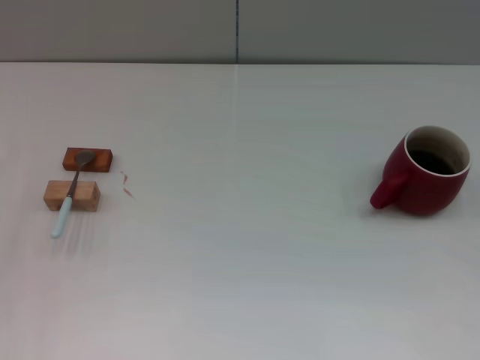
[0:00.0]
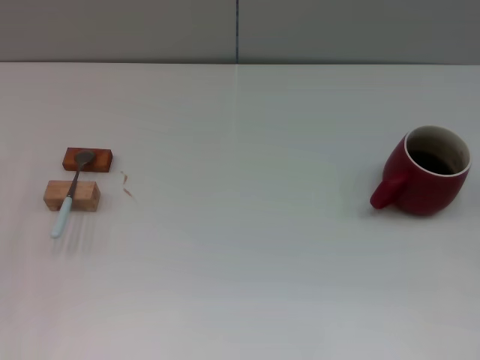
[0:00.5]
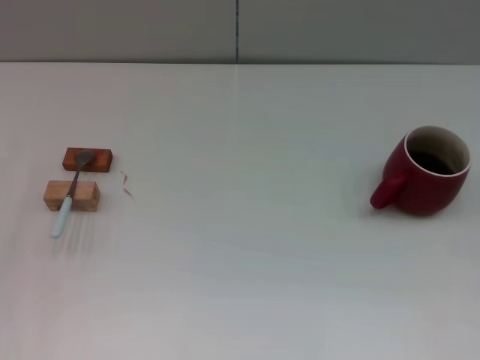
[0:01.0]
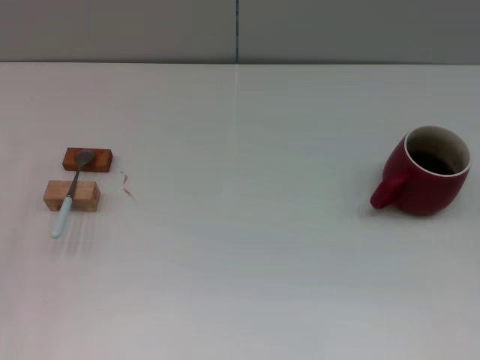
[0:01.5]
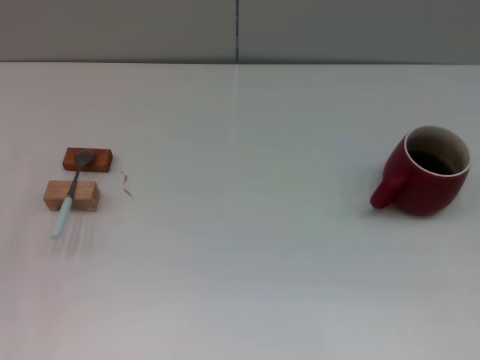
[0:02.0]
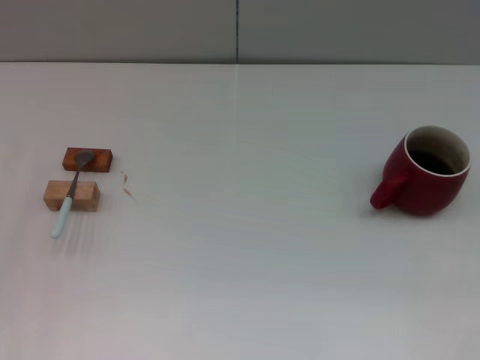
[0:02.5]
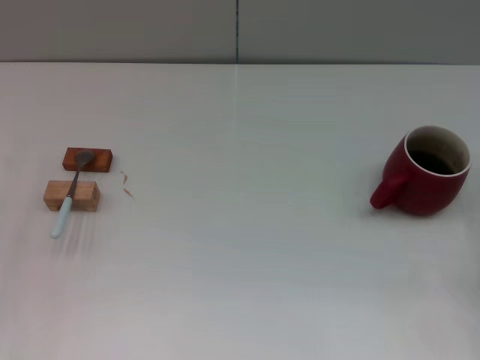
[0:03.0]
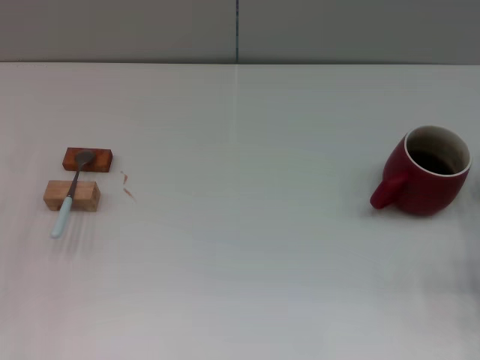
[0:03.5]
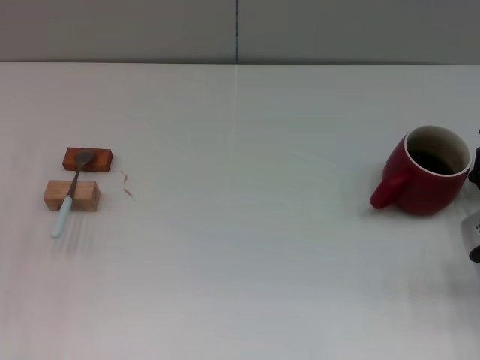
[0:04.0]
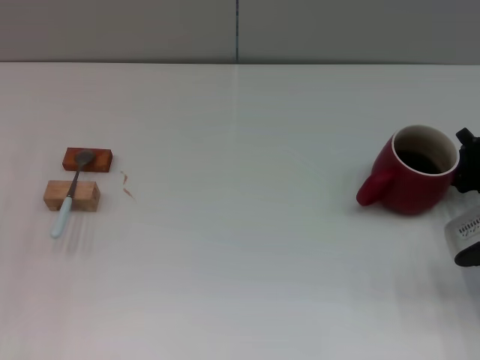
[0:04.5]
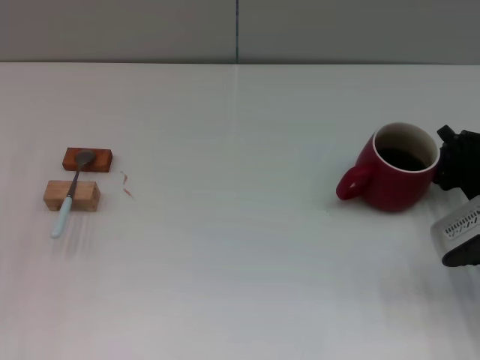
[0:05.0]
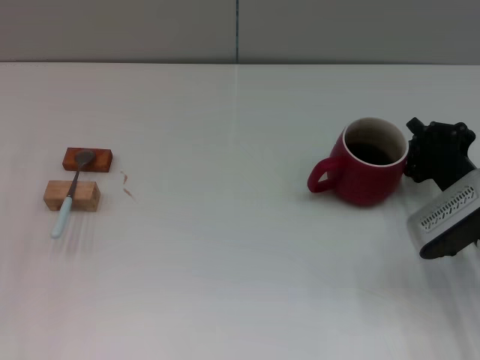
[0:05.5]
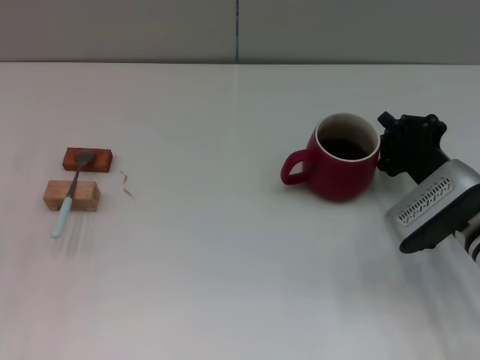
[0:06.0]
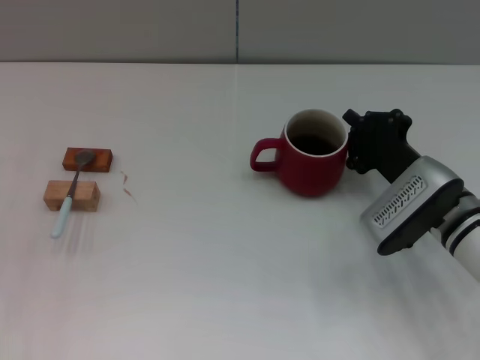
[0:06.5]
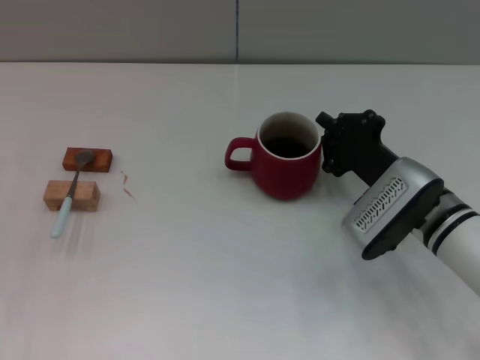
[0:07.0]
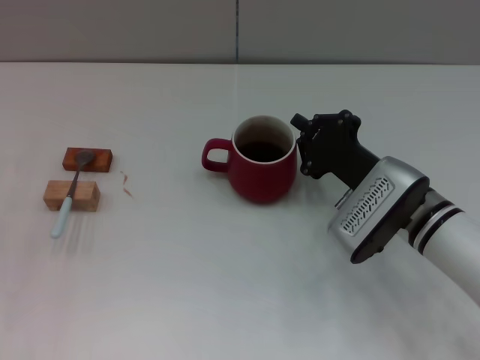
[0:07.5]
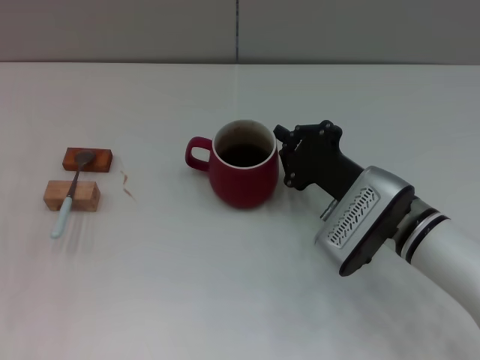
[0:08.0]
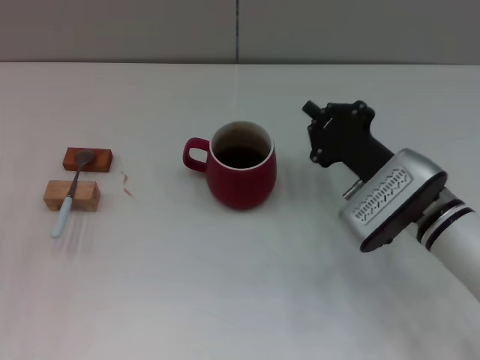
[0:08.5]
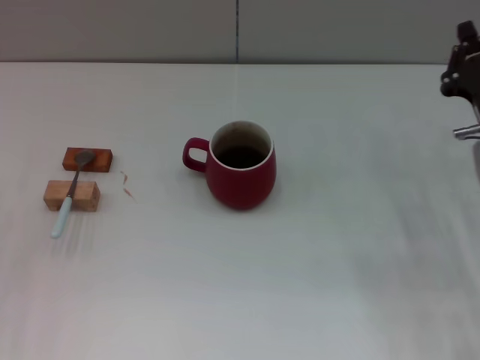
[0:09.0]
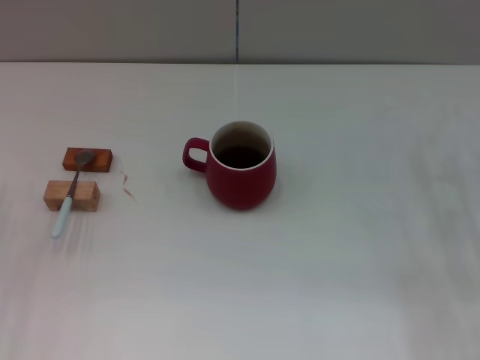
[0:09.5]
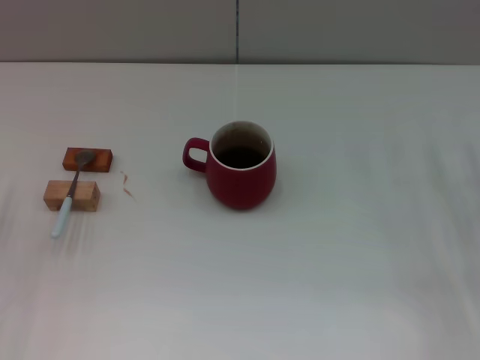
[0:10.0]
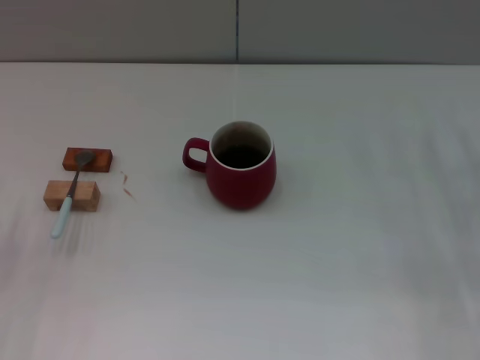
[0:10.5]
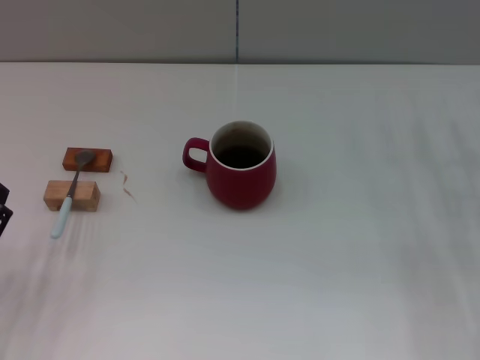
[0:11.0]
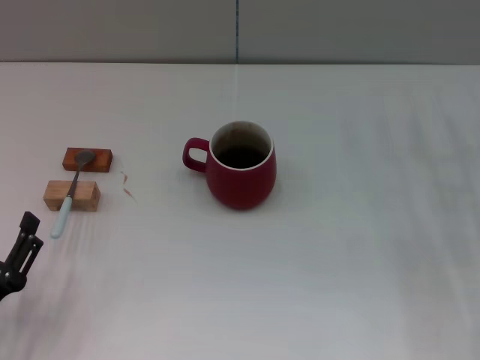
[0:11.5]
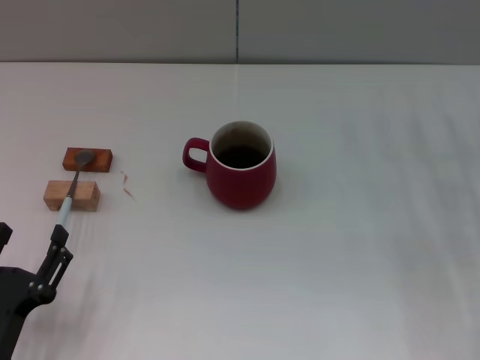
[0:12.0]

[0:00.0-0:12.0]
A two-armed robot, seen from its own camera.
Task of the whole recording: Move the red cup to the center, lift the blue spoon, stir it three times in the cup, and put the spoon into the cup.
Step, 0:00.0 to 0:08.0: Move the cup with coffee to the center of view with the right gripper.
0:02.0 to 0:04.0: The right gripper shifts roughly 5 cm to the left, and closes.
0:04.0 to 0:06.0: The right gripper heads to the left, covering about 10 cm.
0:06.0 to 0:08.0: The right gripper moves to the left, about 10 cm.
0:08.0 to 0:10.0: The left gripper ends up some 5 cm from where it was; the right gripper moves to the right, approximately 15 cm, and opens up.
0:10.0 to 0:12.0: The left gripper goes approximately 15 cm backward and to the right.

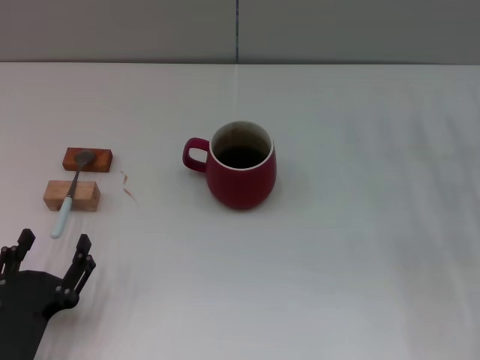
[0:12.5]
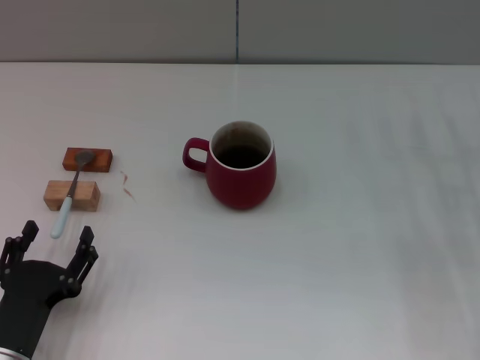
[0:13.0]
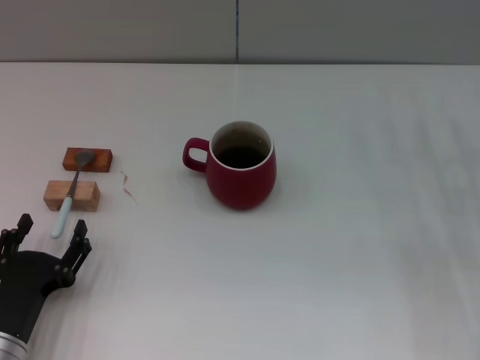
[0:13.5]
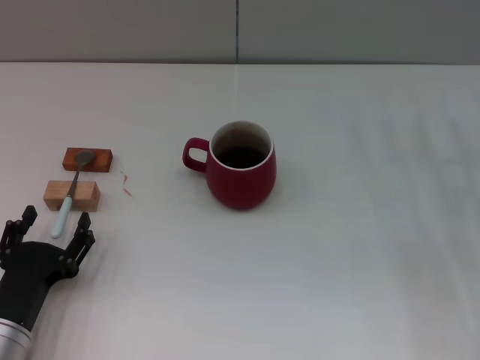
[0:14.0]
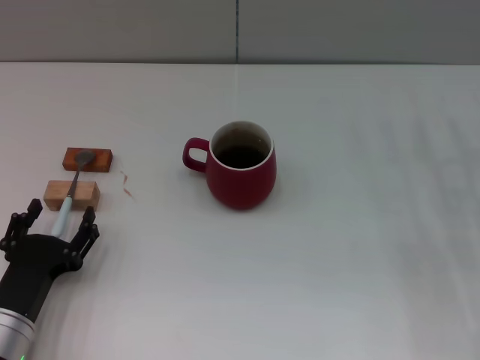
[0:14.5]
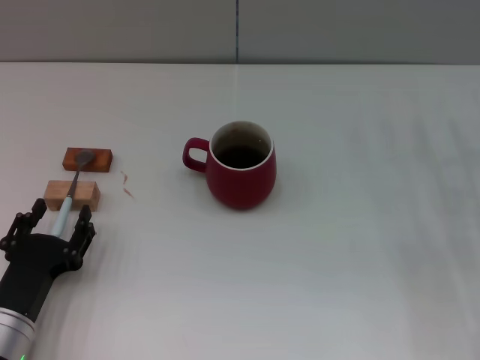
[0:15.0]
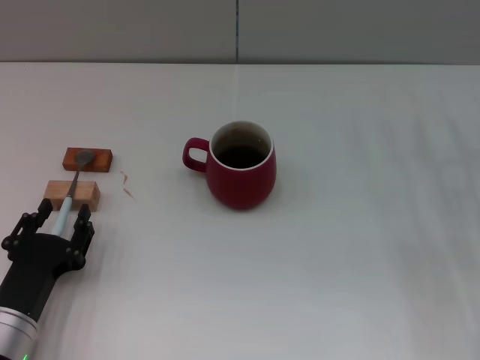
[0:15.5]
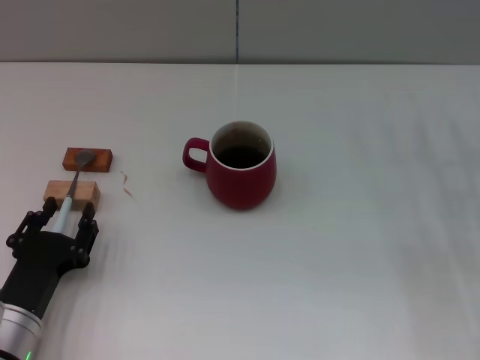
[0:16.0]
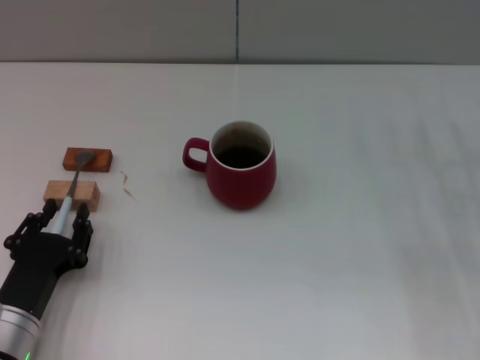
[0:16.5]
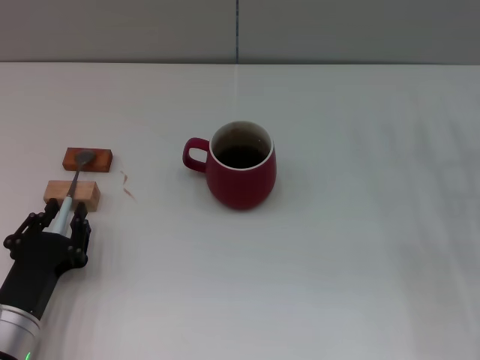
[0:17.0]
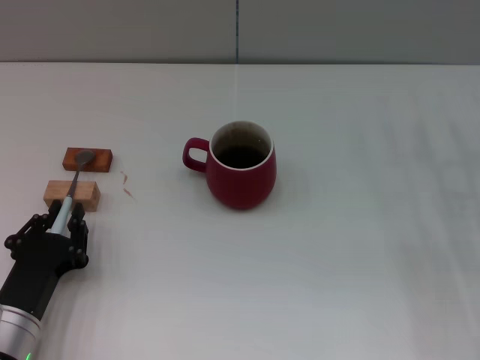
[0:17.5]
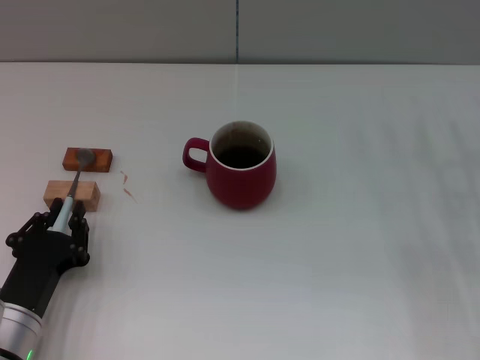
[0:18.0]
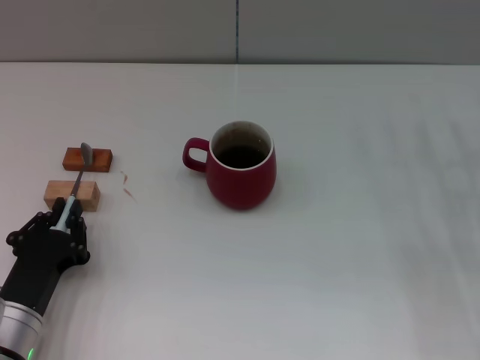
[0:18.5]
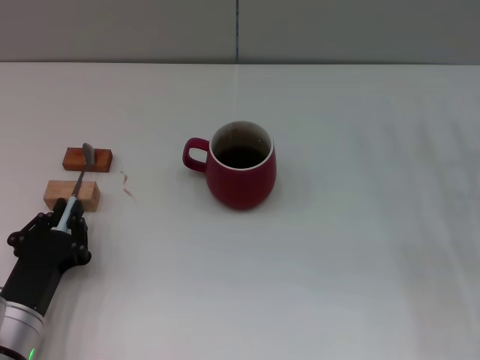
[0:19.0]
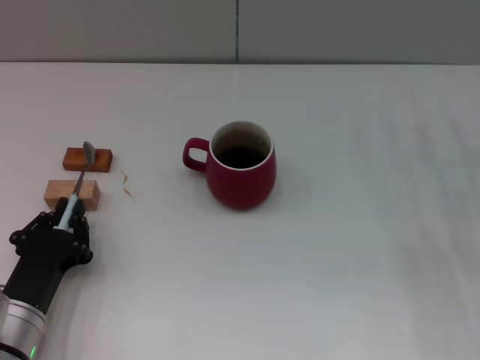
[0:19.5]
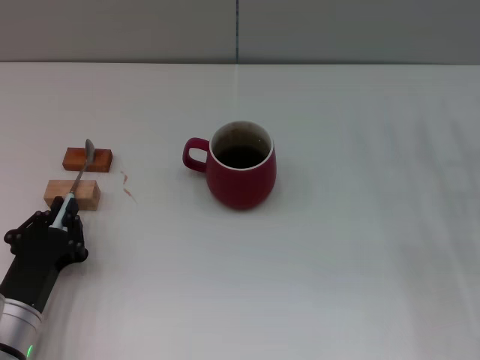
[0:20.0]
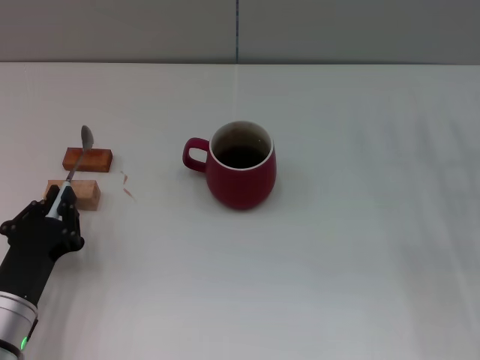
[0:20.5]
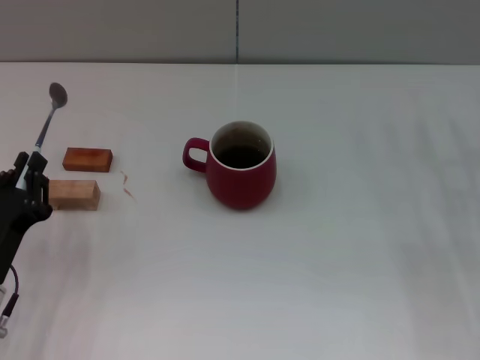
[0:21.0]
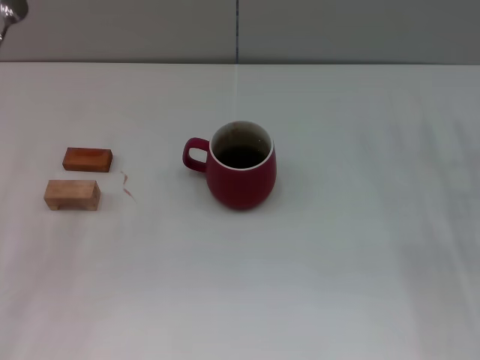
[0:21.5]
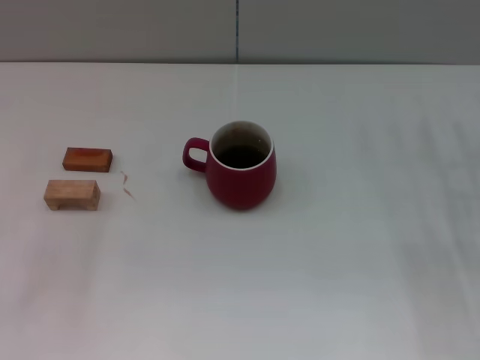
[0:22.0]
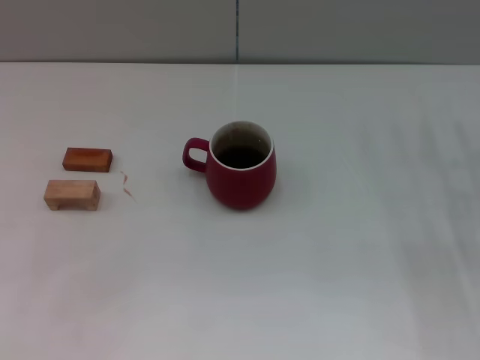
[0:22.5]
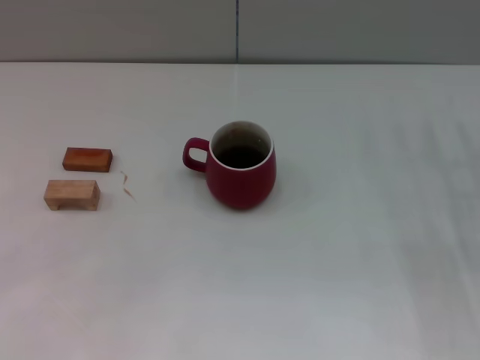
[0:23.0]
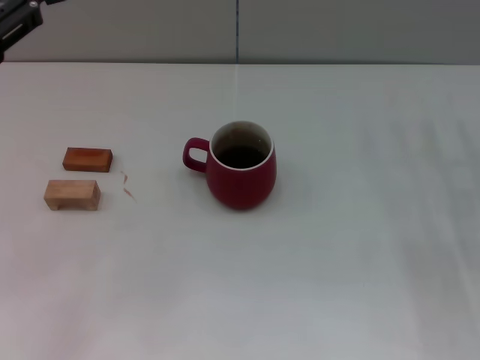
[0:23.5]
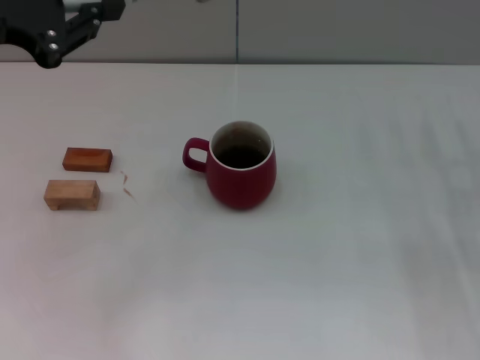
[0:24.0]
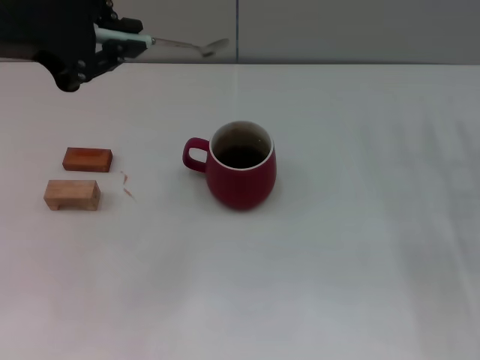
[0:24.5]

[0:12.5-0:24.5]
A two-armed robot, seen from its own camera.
Task of the whole recording: Move the red cup to the center, lift the blue spoon, stir it three times in the cup, and put the spoon into the cup.
Step, 0:12.5 to 0:21.0: Pick up the spoon with the left gripper.
0:12.5 to 0:14.5: The left gripper goes some 5 cm forward.
0:14.5 to 0:16.5: The left gripper closes.
0:16.5 to 0:18.5: The left gripper closes.
0:18.5 to 0:20.5: The grippers make only small movements.
0:20.5 to 0:22.5: The left gripper goes about 20 cm upward, to the left and forward.
0:22.5 to 0:24.5: The left gripper is displaced upward, to the right and forward by approximately 15 cm.

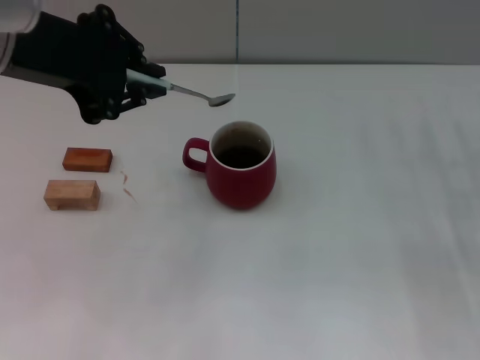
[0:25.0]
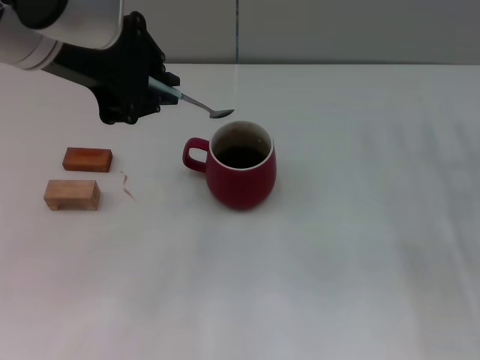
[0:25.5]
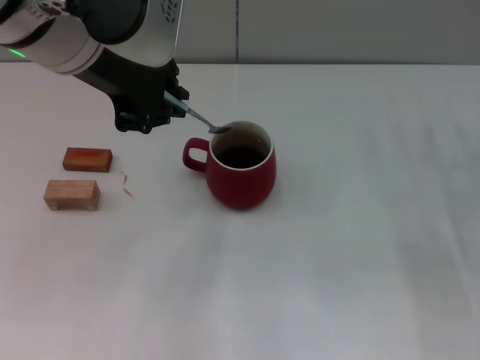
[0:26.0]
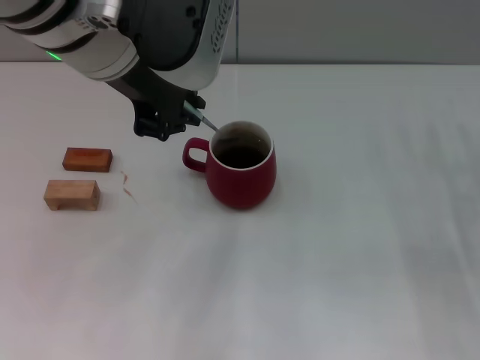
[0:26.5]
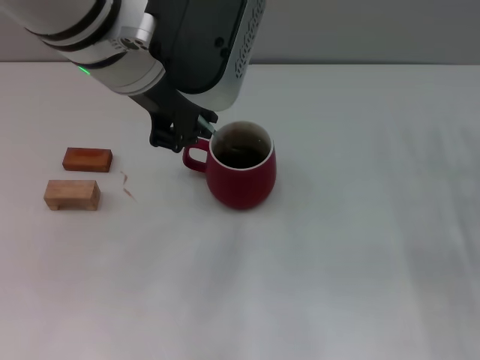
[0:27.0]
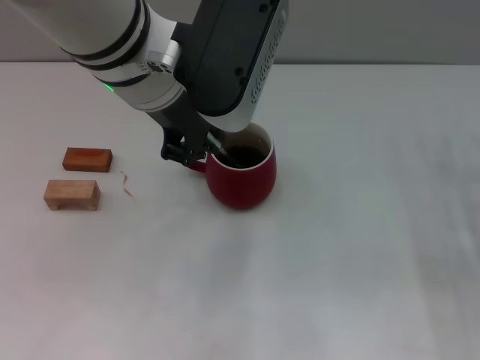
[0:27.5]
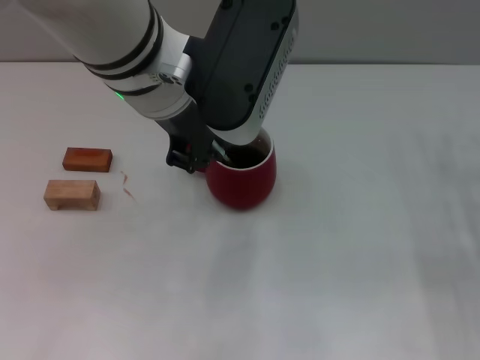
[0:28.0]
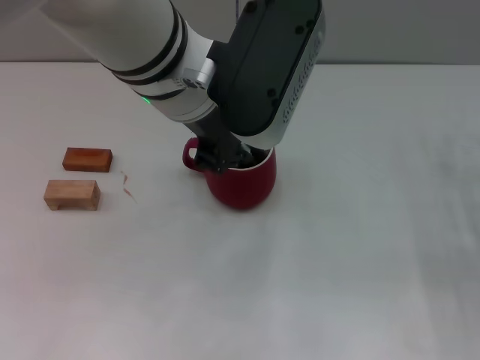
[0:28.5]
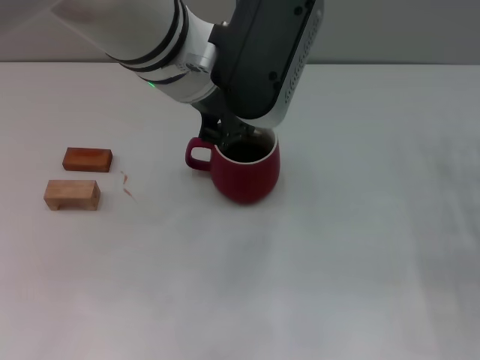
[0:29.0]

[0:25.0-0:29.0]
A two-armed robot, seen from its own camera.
Task of the whole recording: Move the red cup to the center, lift the blue spoon, stir it three times in the cup, and put the spoon into the cup.
0:25.0 to 0:27.0: The left gripper goes roughly 10 cm to the right.
0:27.0 to 0:29.0: The grippers make only small movements.
